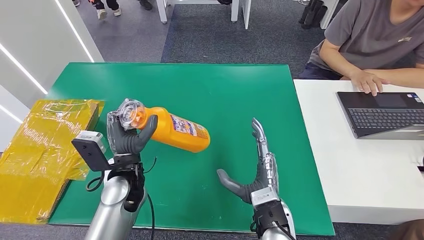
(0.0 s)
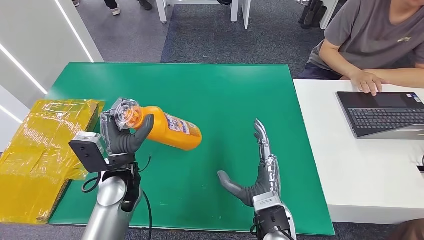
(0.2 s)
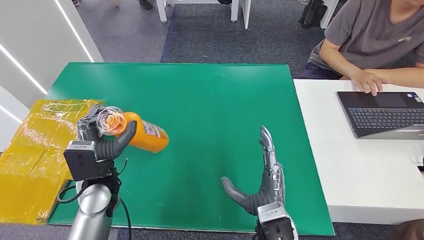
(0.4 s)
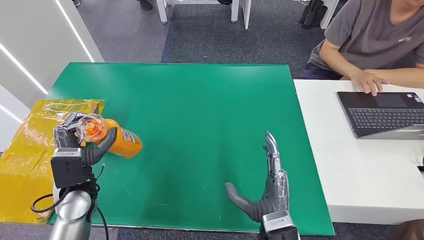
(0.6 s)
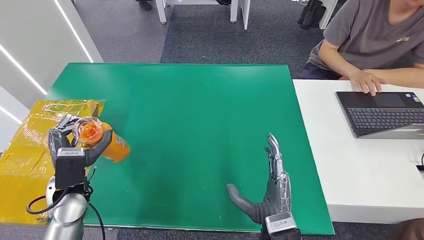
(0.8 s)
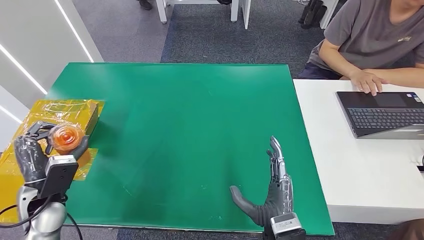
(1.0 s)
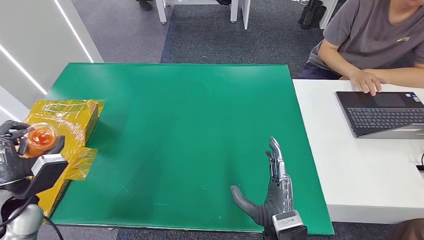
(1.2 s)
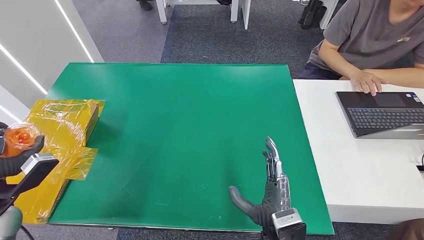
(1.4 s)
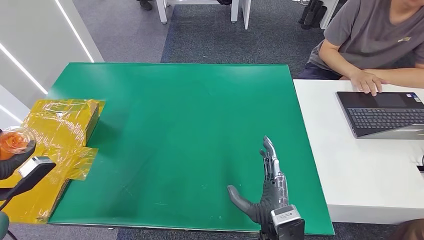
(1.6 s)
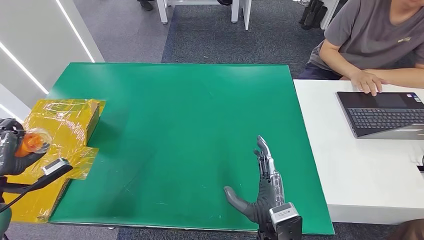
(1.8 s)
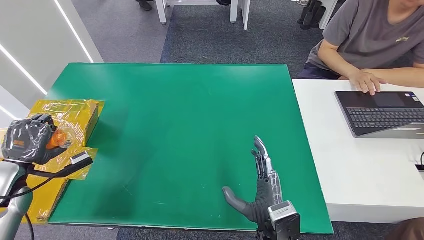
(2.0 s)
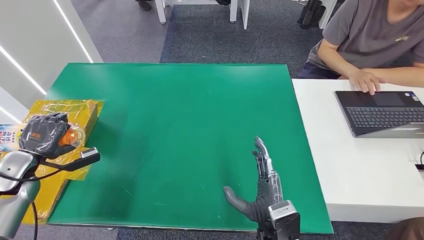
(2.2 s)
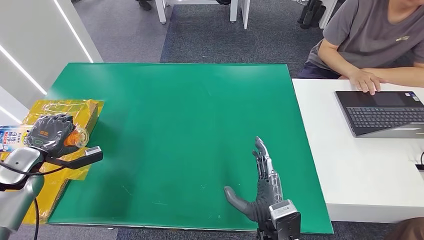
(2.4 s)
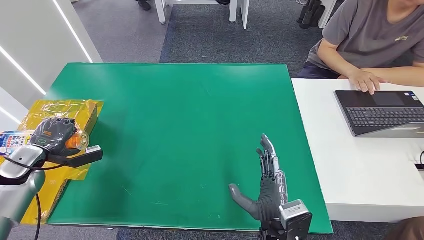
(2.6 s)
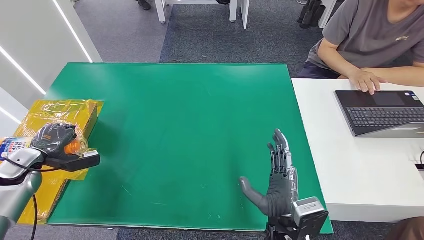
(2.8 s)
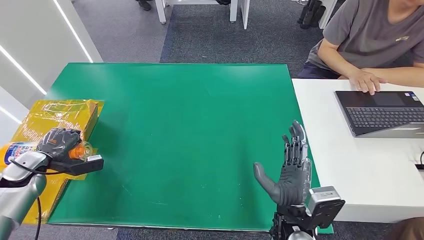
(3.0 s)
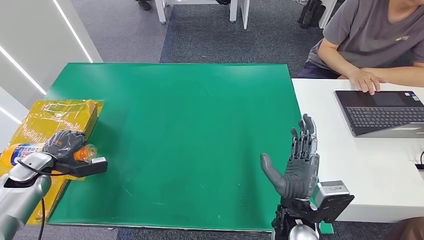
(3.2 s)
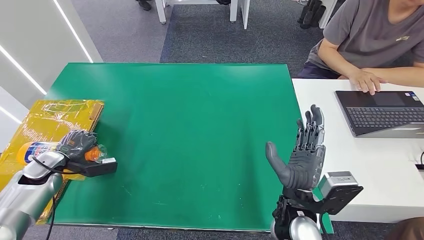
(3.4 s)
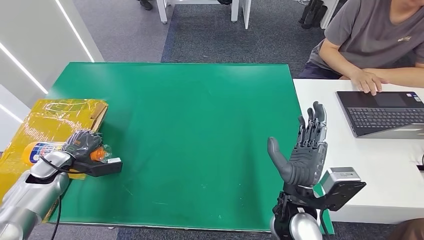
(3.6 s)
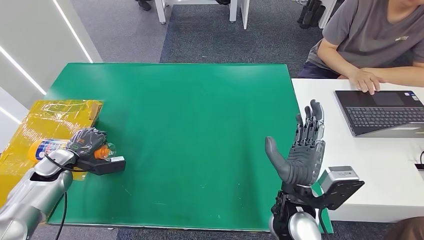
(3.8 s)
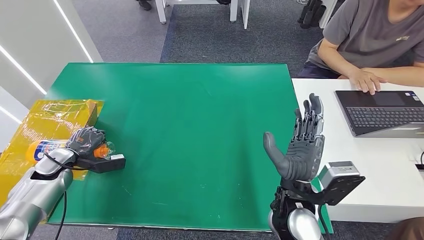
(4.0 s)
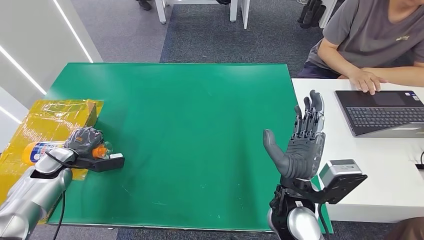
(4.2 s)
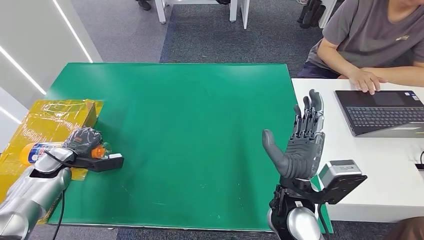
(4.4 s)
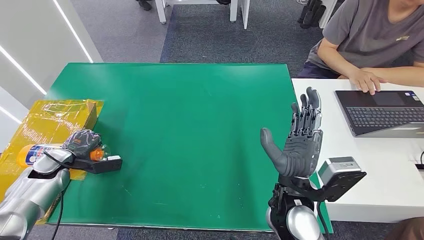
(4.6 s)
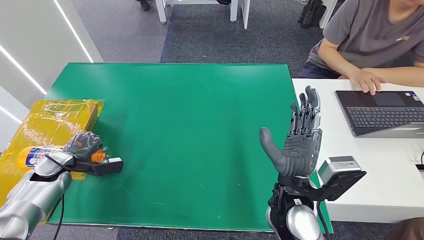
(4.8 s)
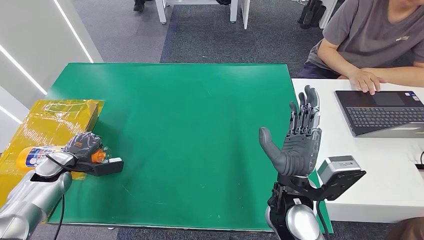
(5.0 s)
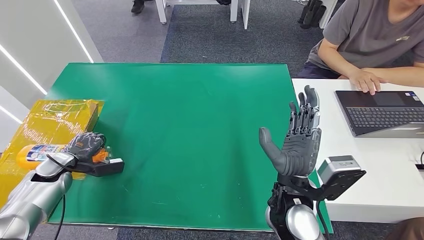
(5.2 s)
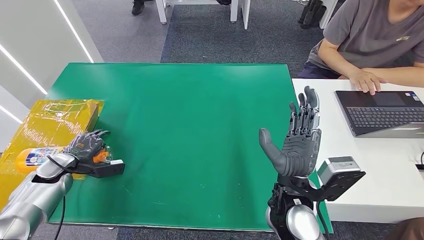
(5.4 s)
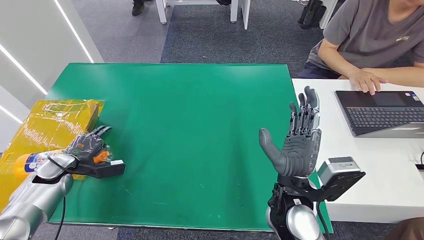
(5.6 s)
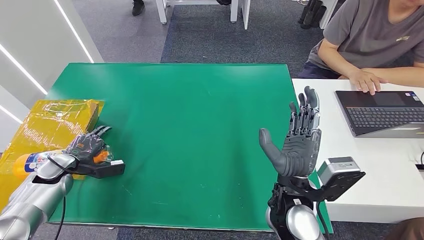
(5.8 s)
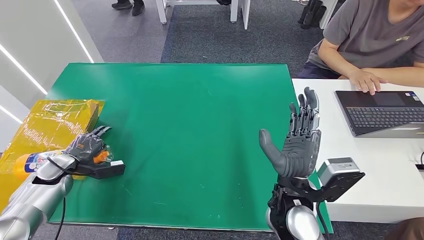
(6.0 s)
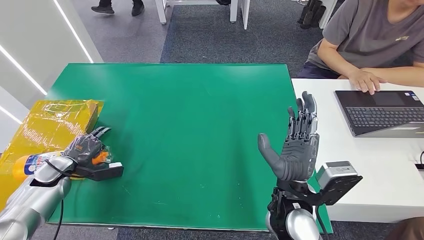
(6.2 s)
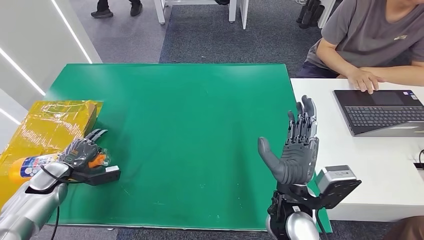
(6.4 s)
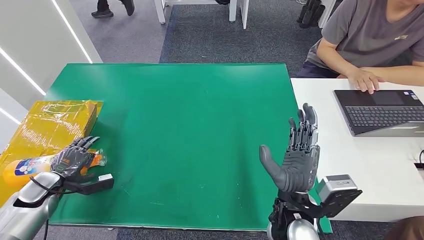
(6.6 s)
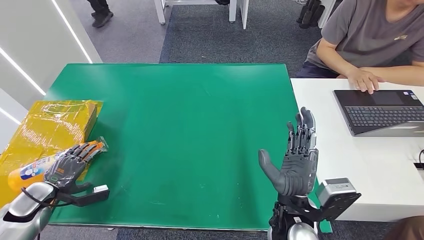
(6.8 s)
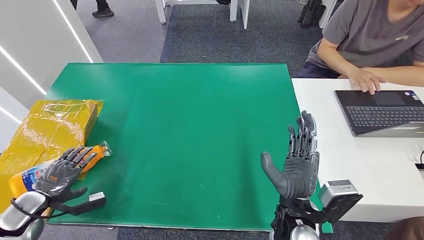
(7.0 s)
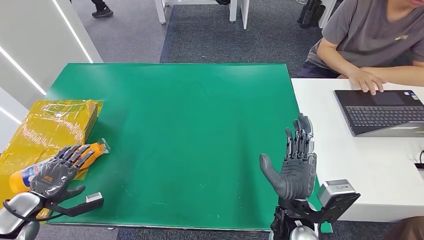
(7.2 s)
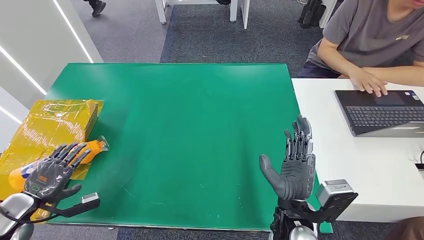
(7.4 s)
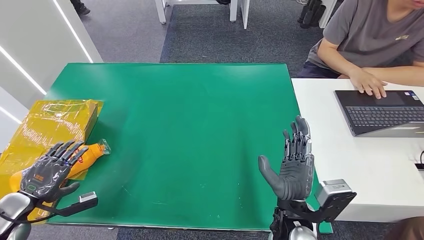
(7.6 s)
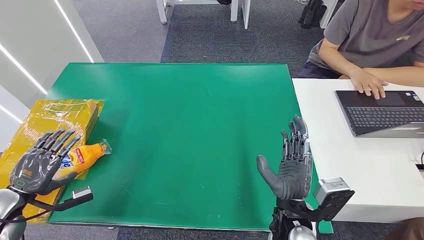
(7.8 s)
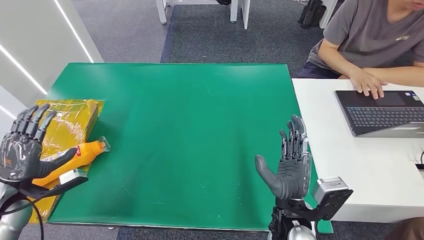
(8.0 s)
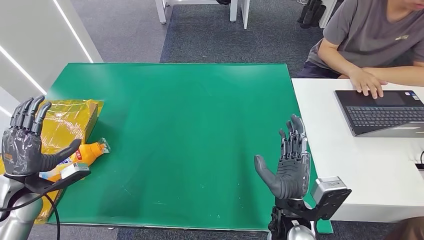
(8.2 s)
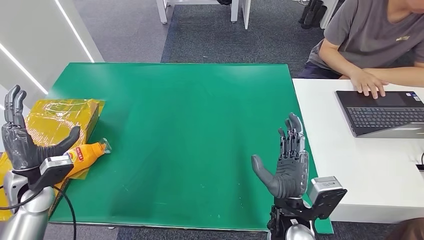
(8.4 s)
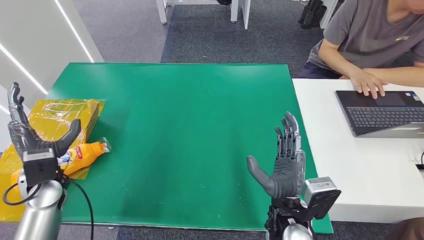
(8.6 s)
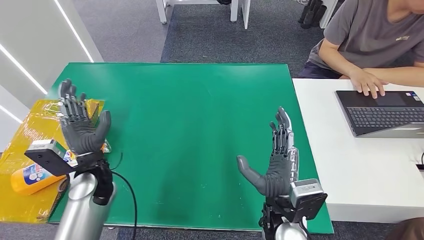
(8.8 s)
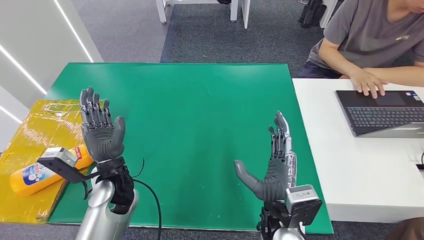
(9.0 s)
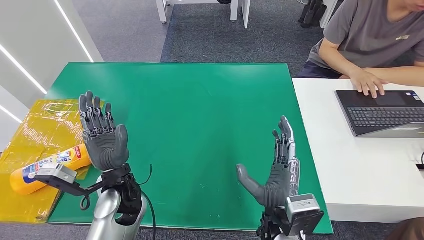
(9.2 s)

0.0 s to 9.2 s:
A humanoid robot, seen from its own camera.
Step, 0.0 to 9.2 s: Turn the bottle to the front side.
0.0 to 1.6 s: The left hand travels to the left by about 30 cm.
1.6 to 3.0 s: The left hand goes roughly 10 cm forward and downward.
3.0 to 4.6 s: The right hand heads upward, covering about 5 cm, while the left hand changes place by approximately 5 cm.
4.6 to 6.2 s: The hands move only a little.
6.2 to 7.6 s: The right hand changes place by roughly 5 cm, while the left hand shifts some 10 cm backward.
7.6 to 9.2 s: The left hand travels to the right by roughly 30 cm.
